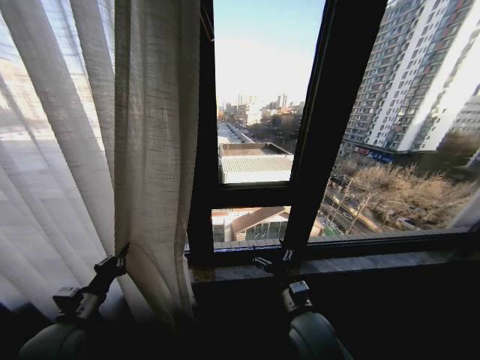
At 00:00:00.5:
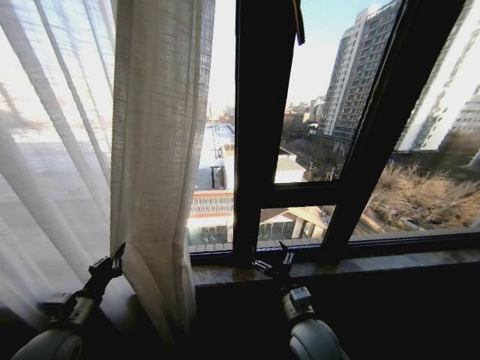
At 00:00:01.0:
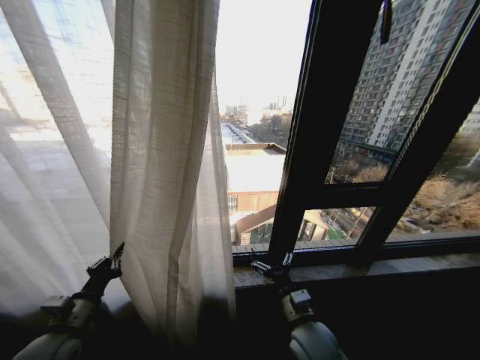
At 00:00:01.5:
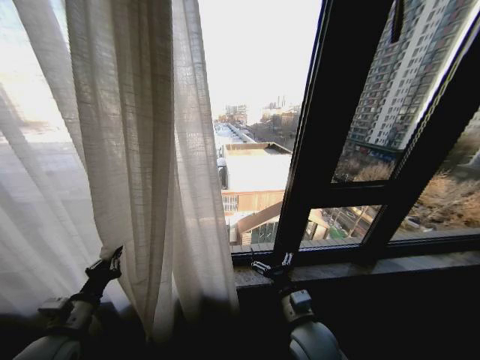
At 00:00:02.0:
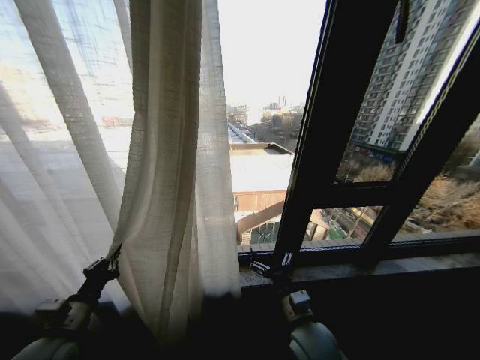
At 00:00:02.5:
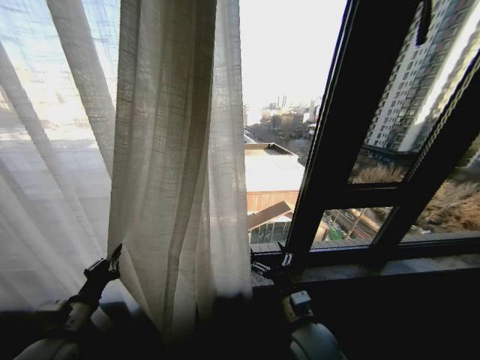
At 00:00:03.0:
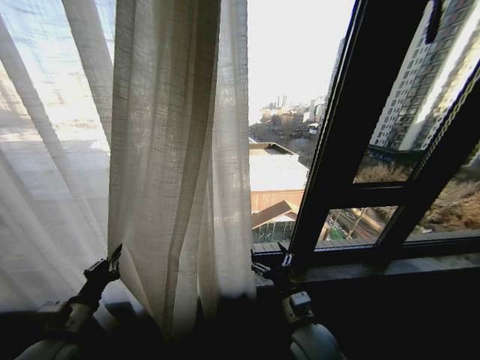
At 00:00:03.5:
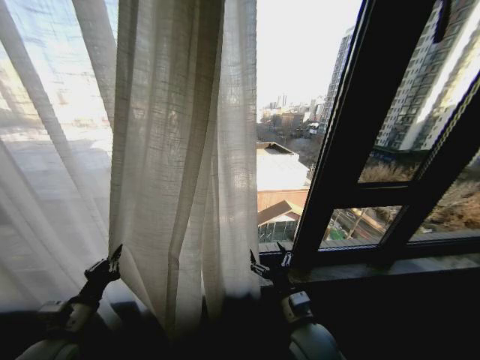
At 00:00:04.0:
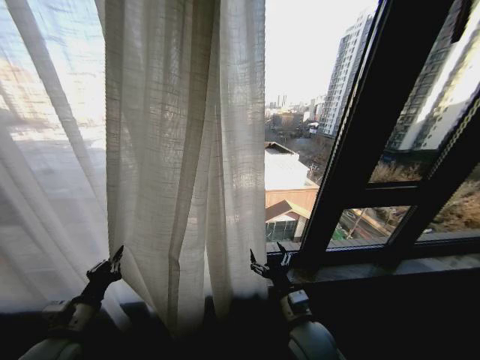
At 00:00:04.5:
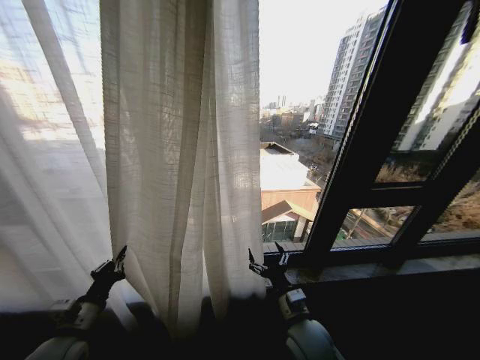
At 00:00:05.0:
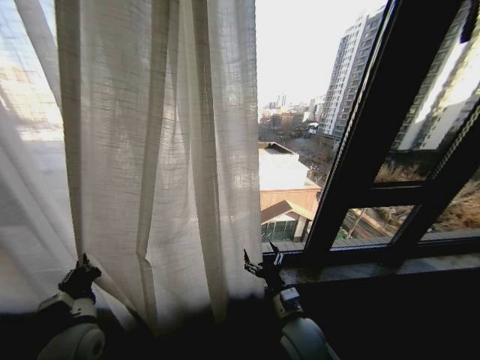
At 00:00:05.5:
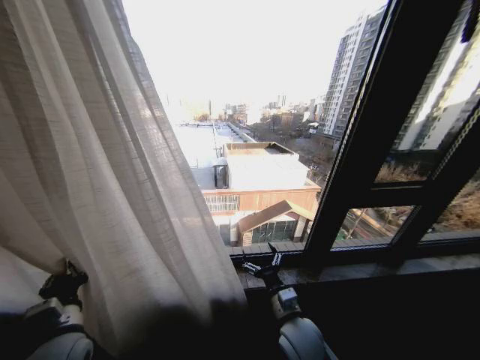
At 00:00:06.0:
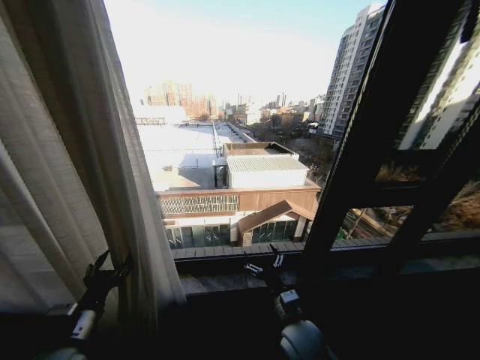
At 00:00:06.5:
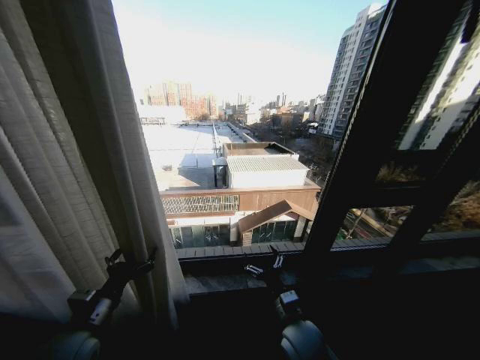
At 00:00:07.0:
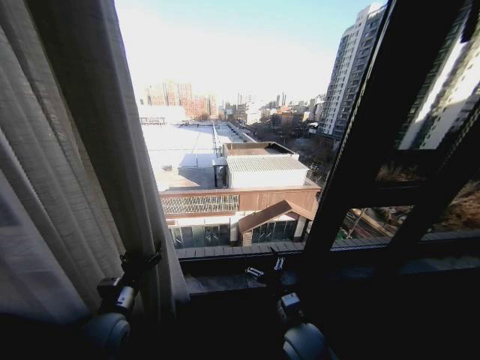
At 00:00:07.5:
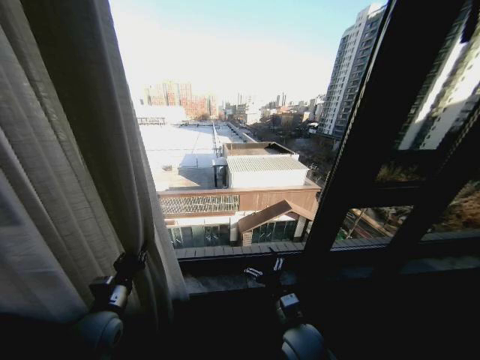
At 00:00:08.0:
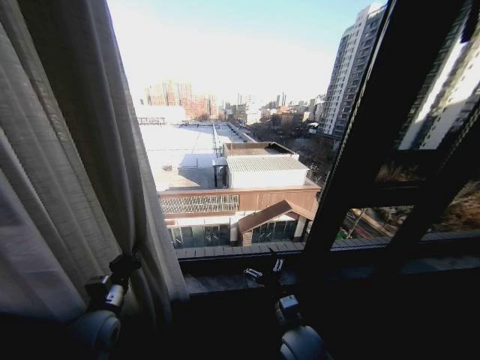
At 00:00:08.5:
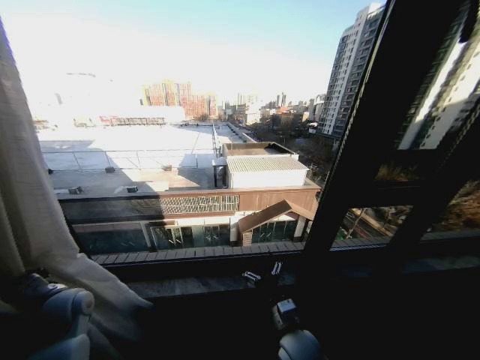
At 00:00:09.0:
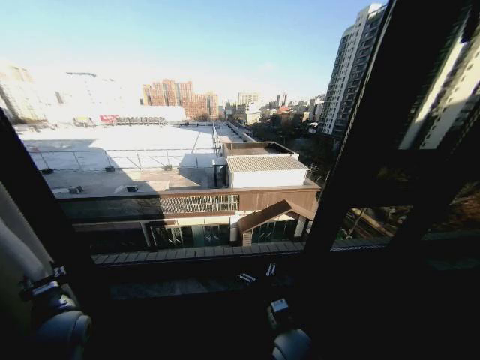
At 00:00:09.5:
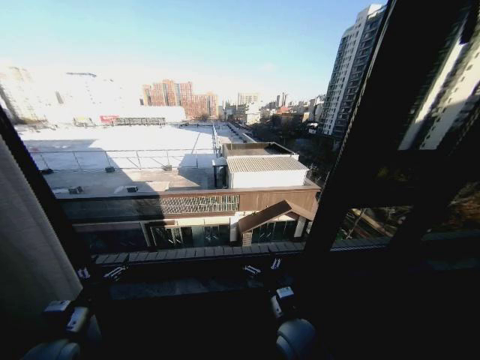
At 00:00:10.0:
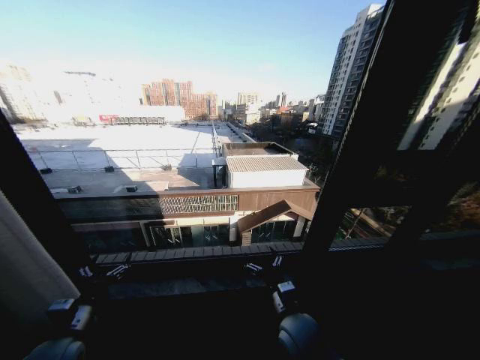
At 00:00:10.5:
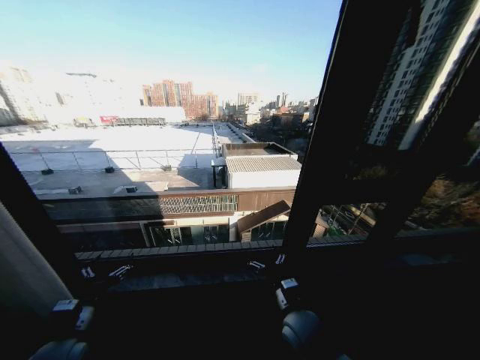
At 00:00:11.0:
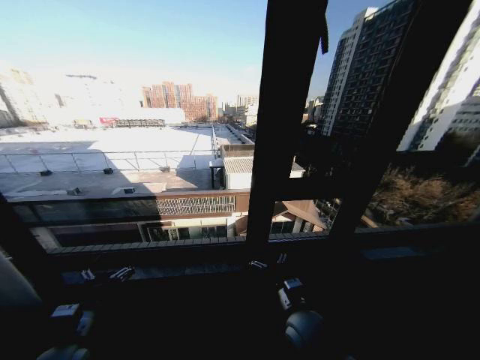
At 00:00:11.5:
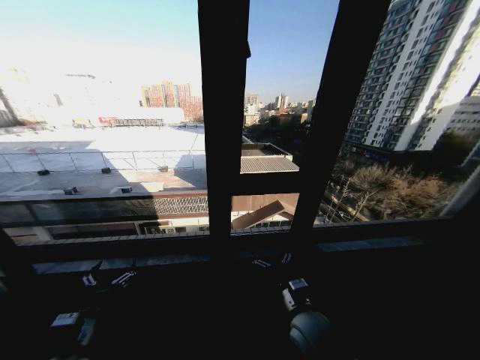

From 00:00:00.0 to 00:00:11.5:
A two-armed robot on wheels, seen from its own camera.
Task of the whole recording: Open the curtains by pulling them apart, changing their state from closed to fully open.
From 00:00:04.0 to 00:00:06.0: The left gripper ends up approximately 5 cm from where it was, and opens up.
From 00:00:06.0 to 00:00:07.5: The left gripper travels forward by roughly 5 cm, and opens, then closes once more.
From 00:00:07.5 to 00:00:09.5: The left gripper is displaced to the left by about 10 cm, and opens.
From 00:00:09.5 to 00:00:11.5: The left gripper moves about 5 cm.

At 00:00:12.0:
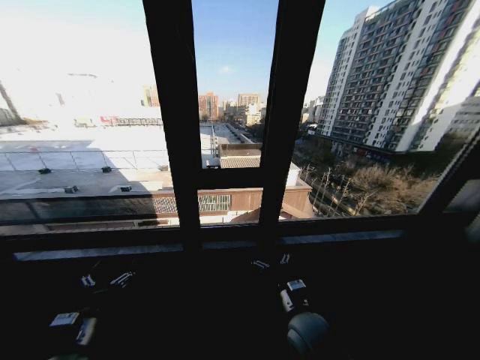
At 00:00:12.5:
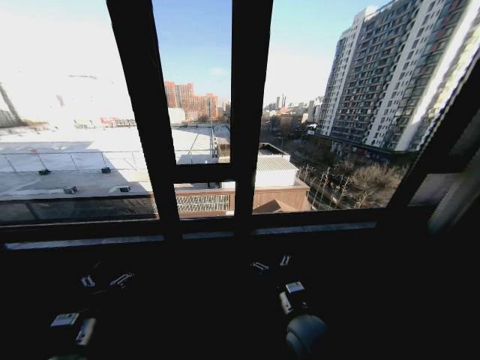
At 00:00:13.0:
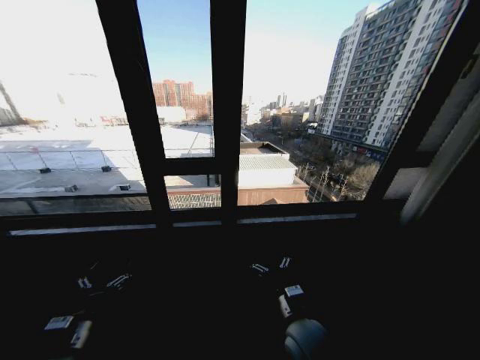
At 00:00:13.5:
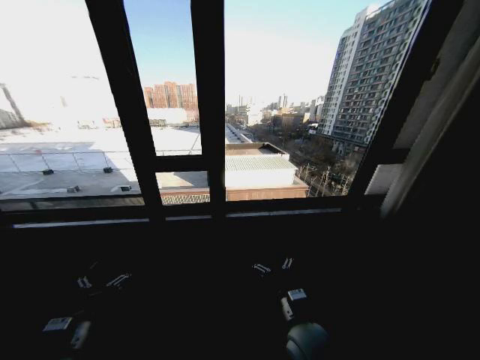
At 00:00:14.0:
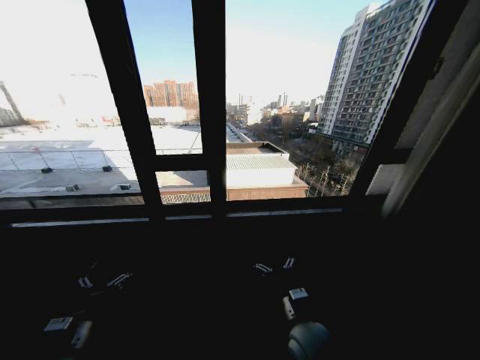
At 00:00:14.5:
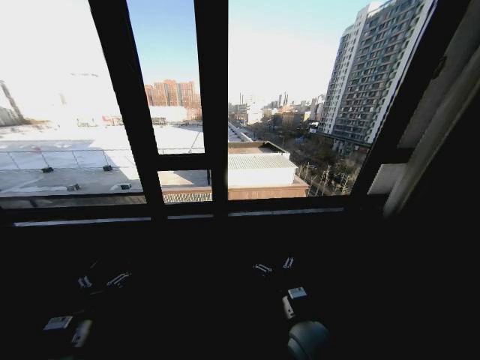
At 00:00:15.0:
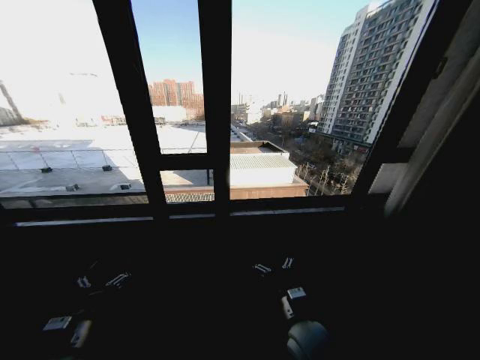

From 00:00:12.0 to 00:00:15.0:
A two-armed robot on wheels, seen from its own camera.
Task of the whole recording: Open the curtains by pulling them apart, changing their state from closed to fully open.
From 00:00:13.5 to 00:00:15.0: The two grippers keep their place.
